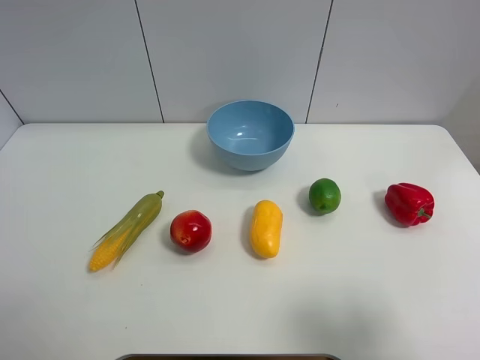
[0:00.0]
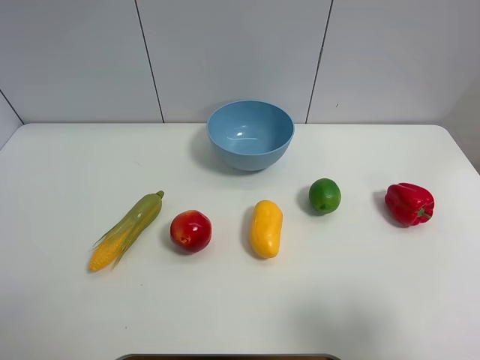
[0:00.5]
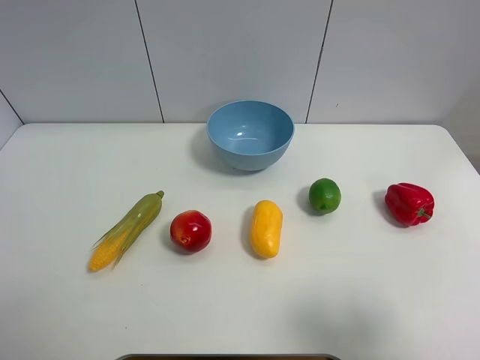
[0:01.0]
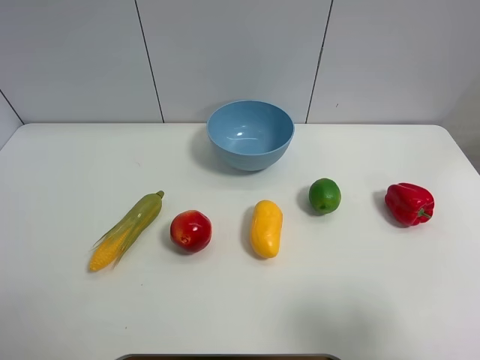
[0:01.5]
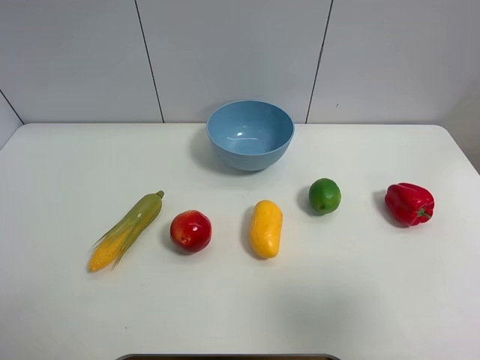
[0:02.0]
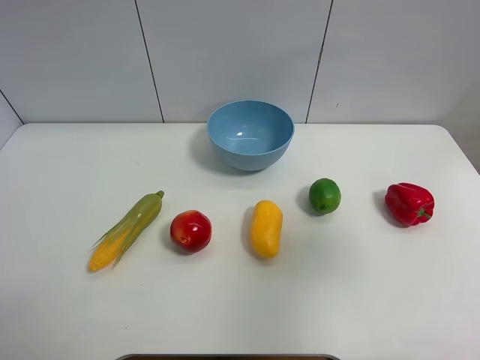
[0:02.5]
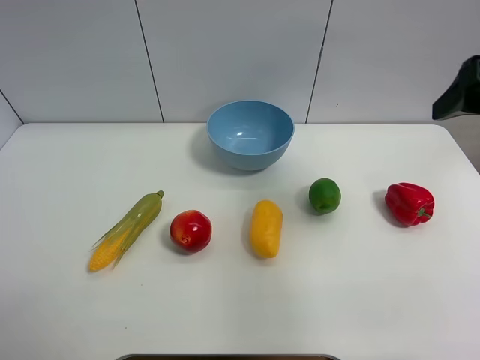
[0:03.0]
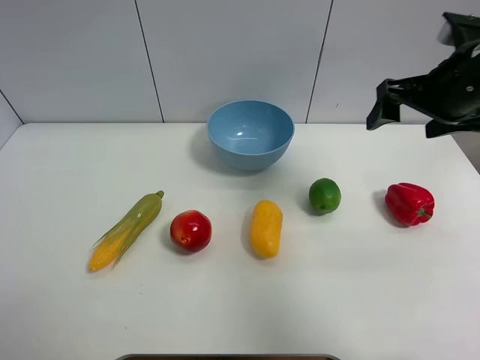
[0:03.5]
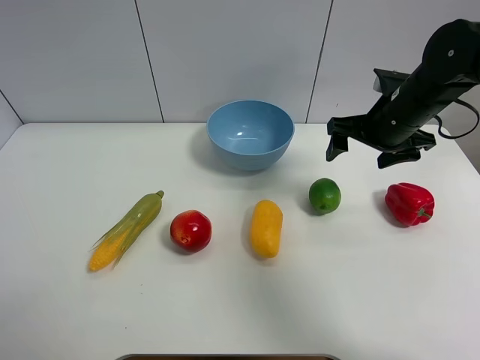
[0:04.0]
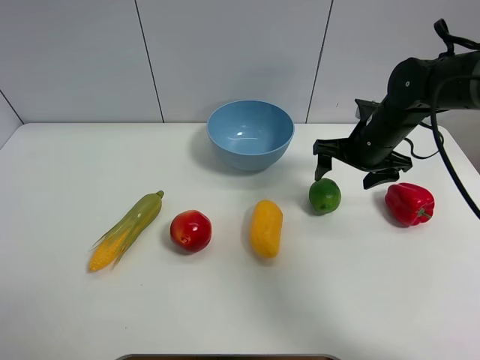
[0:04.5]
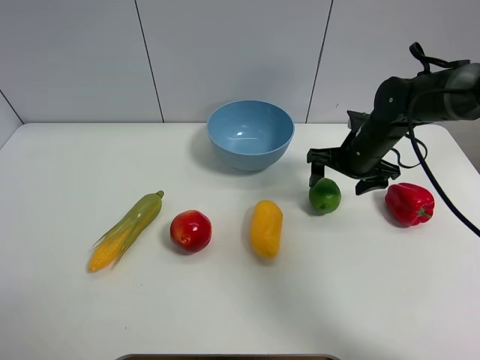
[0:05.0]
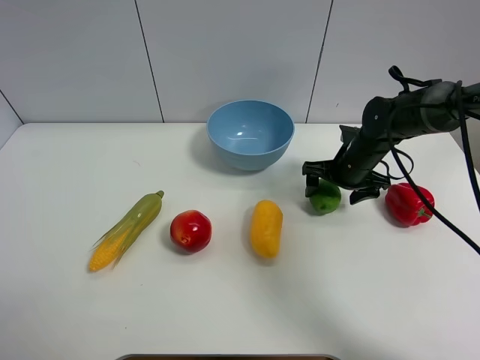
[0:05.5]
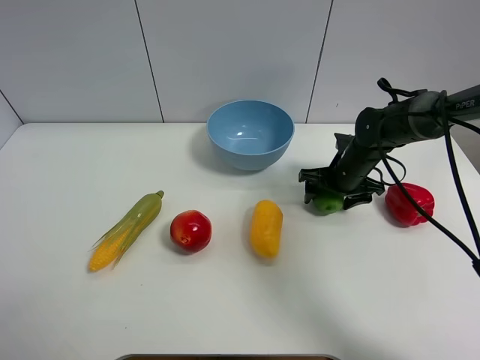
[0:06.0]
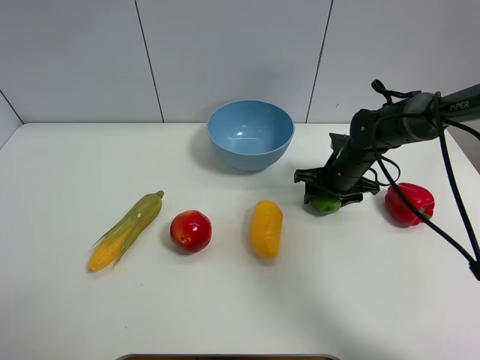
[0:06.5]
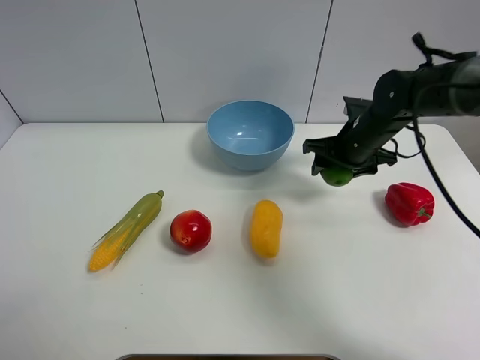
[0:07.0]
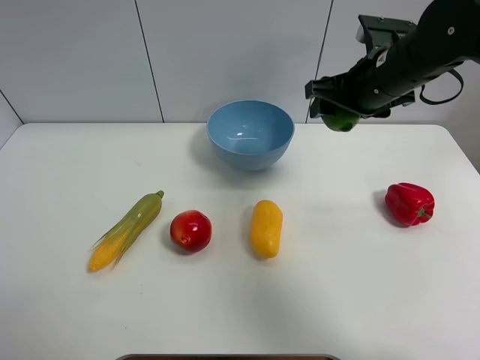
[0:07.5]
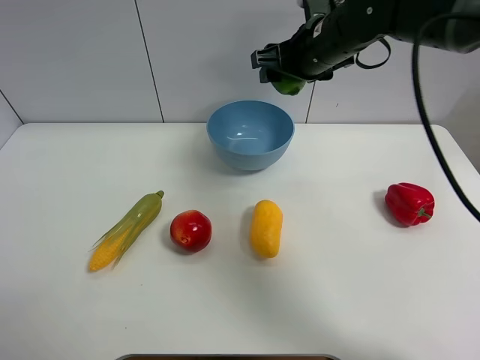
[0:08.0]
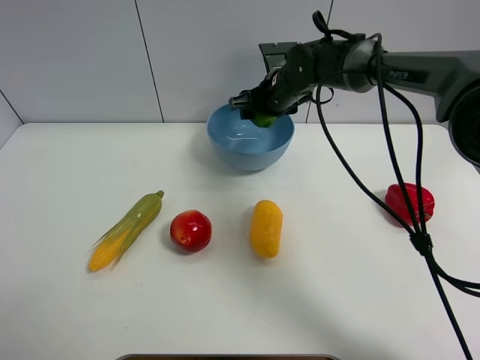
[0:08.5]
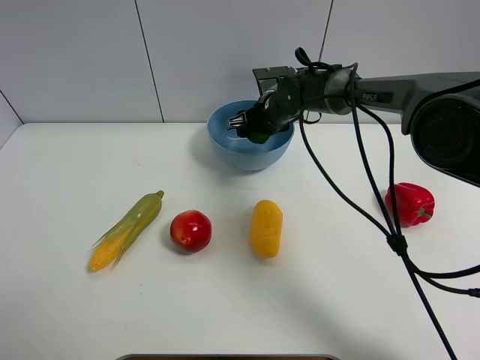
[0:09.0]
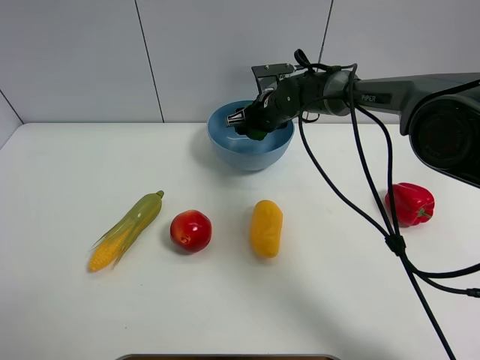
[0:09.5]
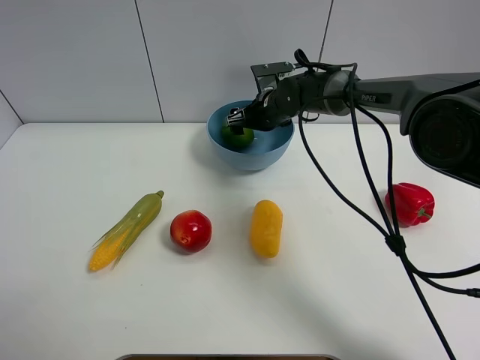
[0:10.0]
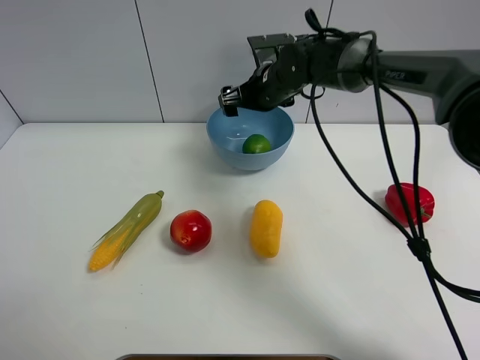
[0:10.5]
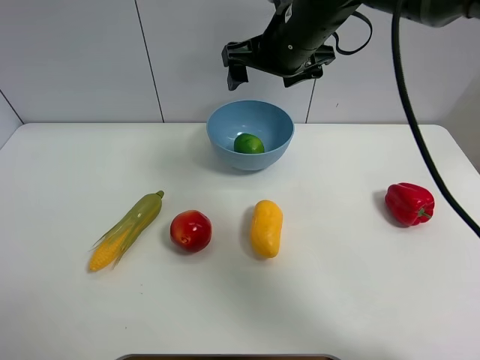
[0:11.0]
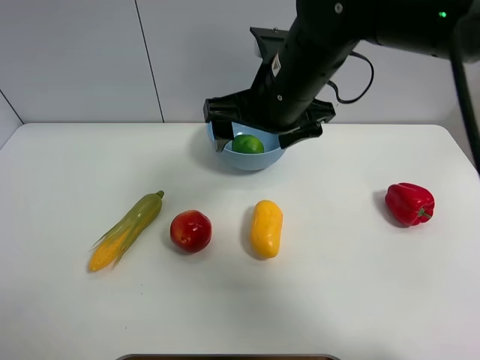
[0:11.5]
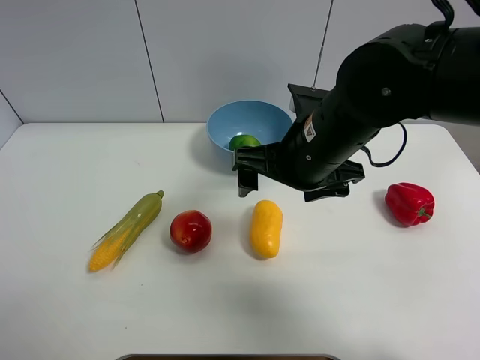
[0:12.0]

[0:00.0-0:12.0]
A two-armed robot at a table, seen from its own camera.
Task of the whole recording: Put the three fruits on the table into a bowl.
Step, 0:00.0 to 0:06.0: Grasp the green lemon with right gripper.
Step, 0:06.5 to 0:10.0: Place the green lemon in the blue bowl with right gripper.
0:00.0 to 0:02.0: The right gripper moves upward, roughly 5 cm.
0:02.0 to 0:04.0: The right gripper heads forward, covering about 30 cm.
0:04.0 to 0:06.0: The right gripper travels downward by some 15 cm, and closes its fingers.
0:06.0 to 0:08.0: The right gripper shifts roughly 20 cm upward and to the left.
0:08.0 to 0:10.0: The right gripper is displaced downward and forward by roughly 15 cm, and opens up.
0:10.0 to 0:12.0: The right gripper goes approximately 25 cm backward and upward.

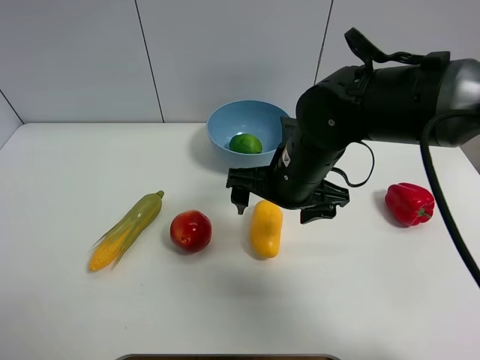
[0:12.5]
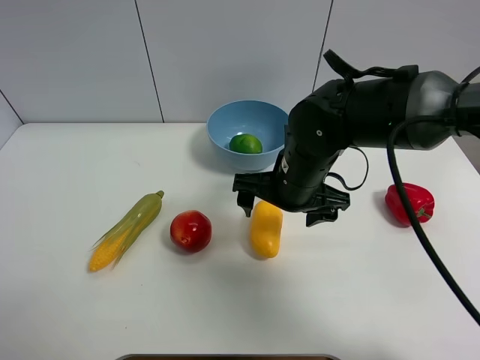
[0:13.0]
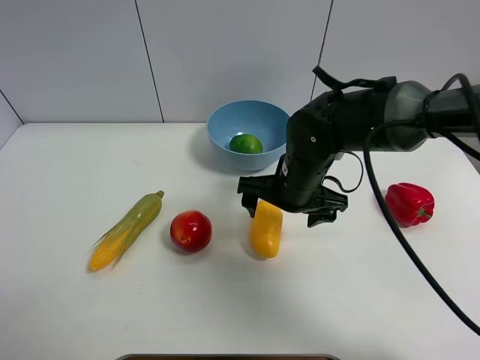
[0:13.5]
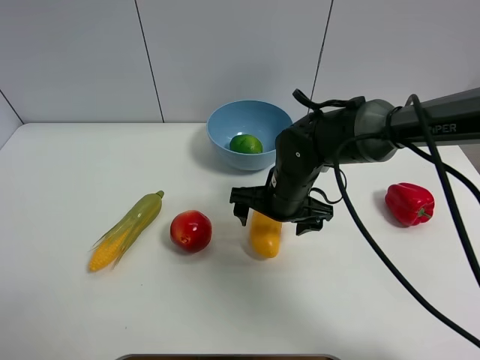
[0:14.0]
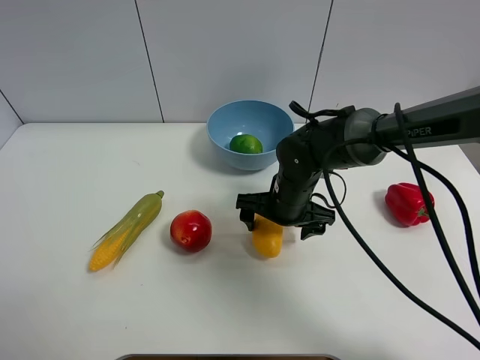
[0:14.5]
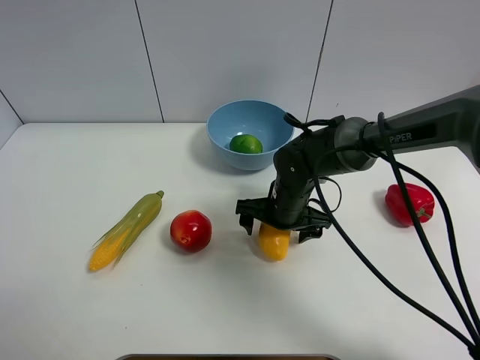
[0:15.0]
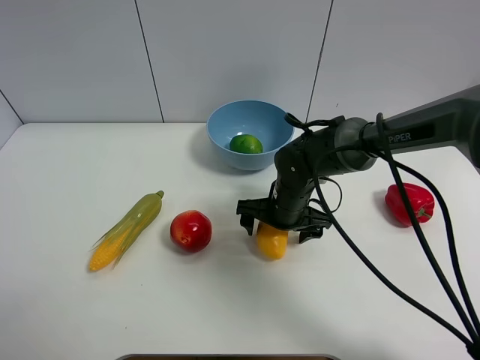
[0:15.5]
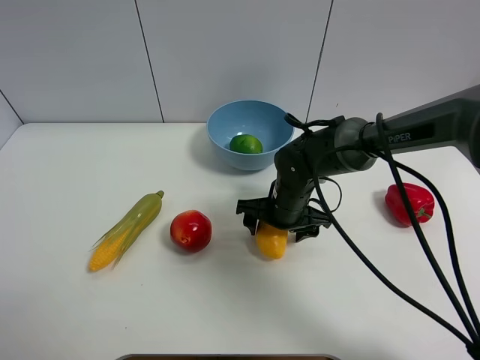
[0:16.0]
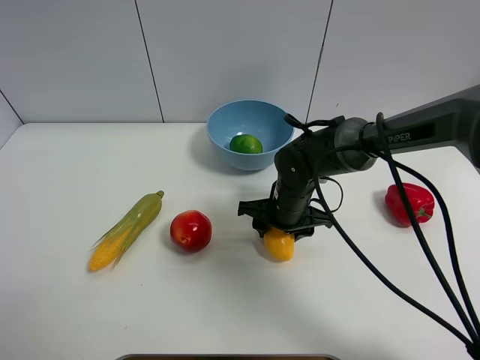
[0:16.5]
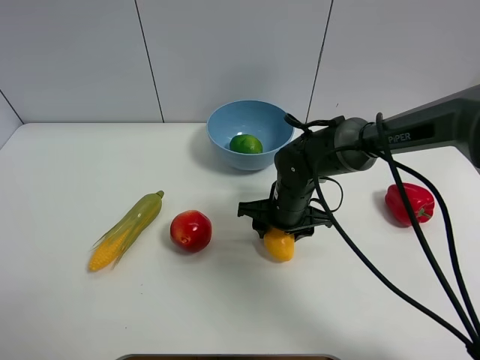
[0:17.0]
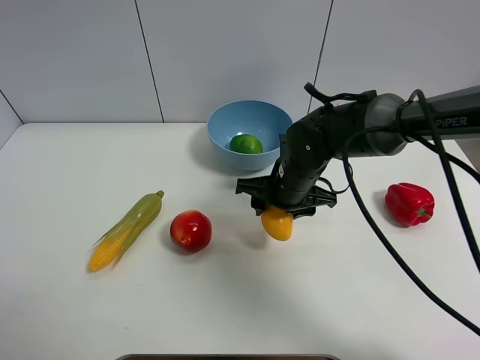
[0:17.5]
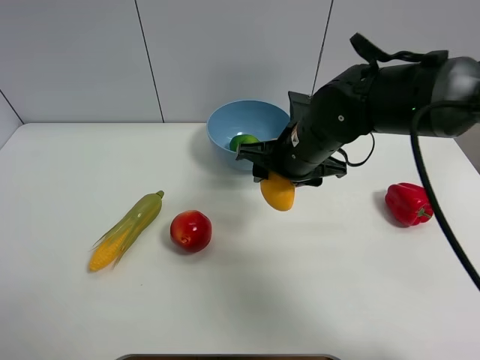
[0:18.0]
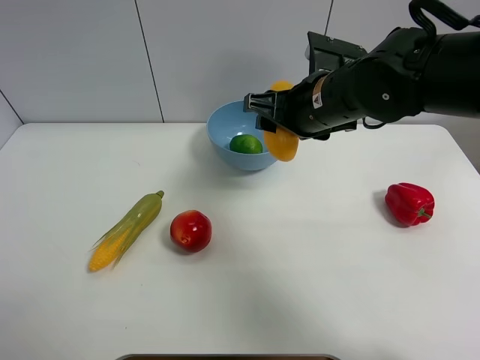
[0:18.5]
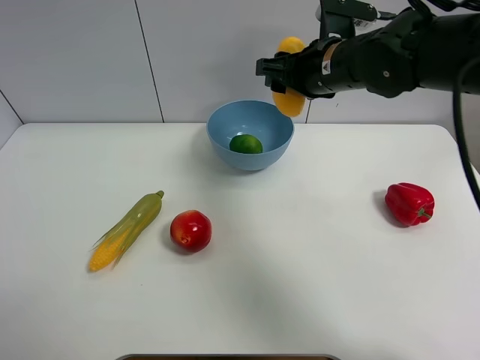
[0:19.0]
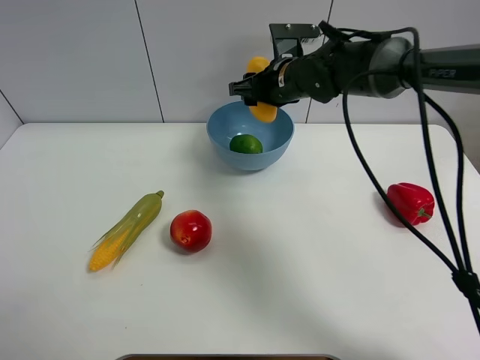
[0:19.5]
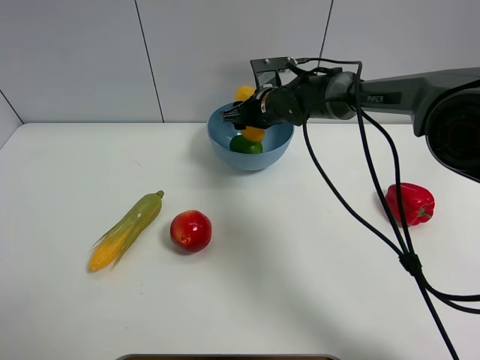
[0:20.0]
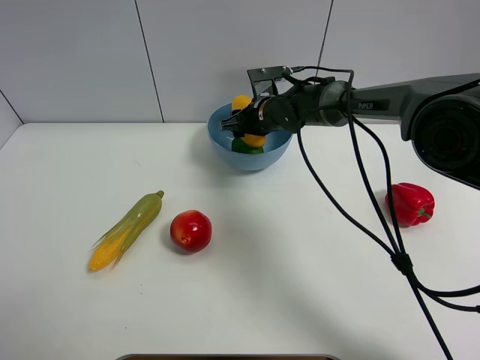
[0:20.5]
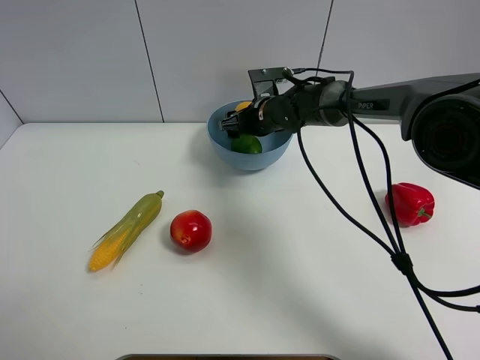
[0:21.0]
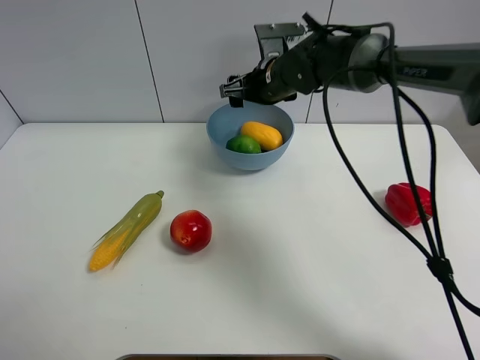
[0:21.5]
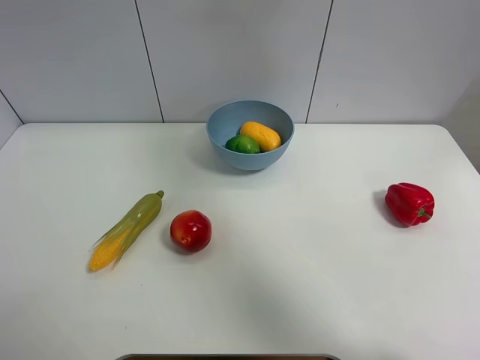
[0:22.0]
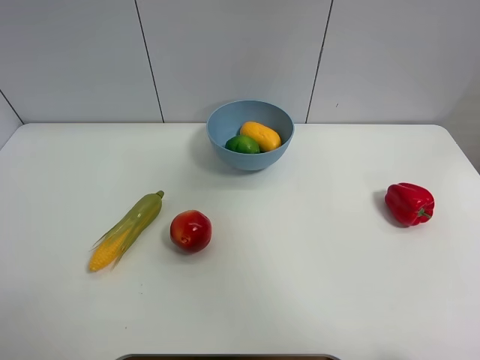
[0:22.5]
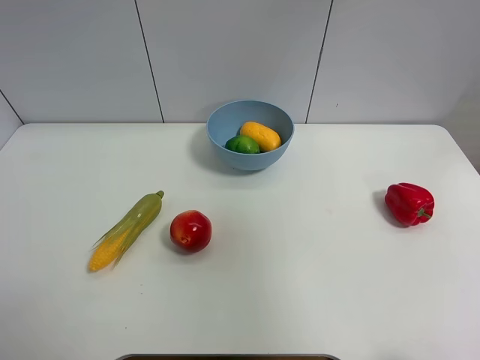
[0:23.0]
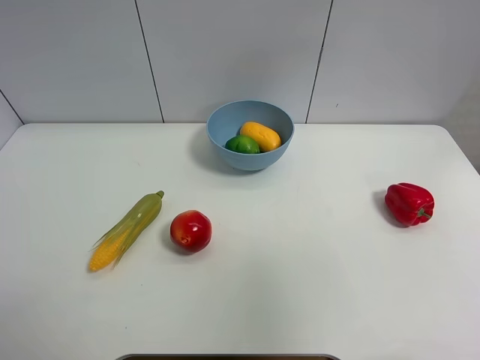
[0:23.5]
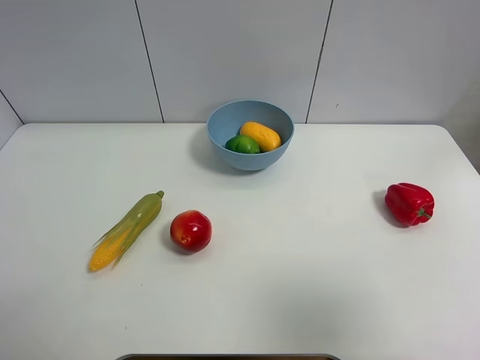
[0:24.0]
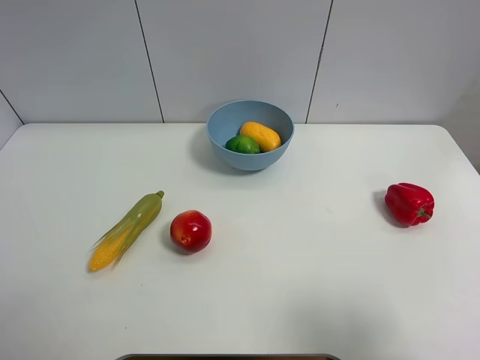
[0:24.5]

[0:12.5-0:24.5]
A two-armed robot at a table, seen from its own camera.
Task of the whole recording: Put the three fruits on the table into a bowl.
Step, 0:12.5 to 0:16.0: Grasp the mango with right gripper.
Step, 0:16.5 to 0:21.0: Place the mango in the blue bowl with right gripper.
0:12.5 to 0:14.5: The right gripper shifts roughly 10 cm downward.
0:14.5 to 0:16.5: The right gripper closes up.
0:16.5 to 0:18.5: The right gripper goes some 15 cm upward.
0:18.5 to 0:20.5: The right gripper moves forward and downward, about 20 cm.
0:20.5 to 0:22.5: The right gripper heads upward, backward and to the right, covering some 50 cm, and opens up.
0:22.5 to 0:24.5: The right gripper heads downward and backward, covering some 30 cm.

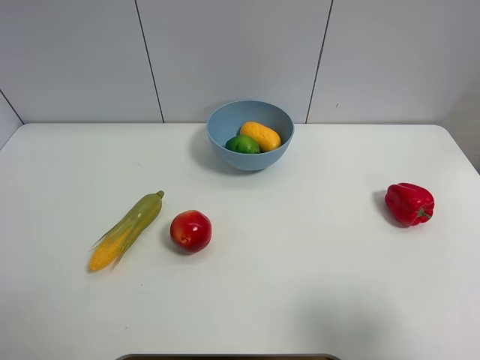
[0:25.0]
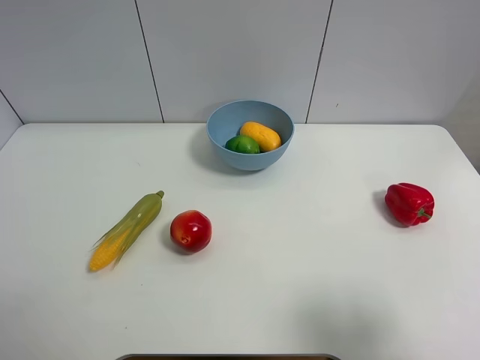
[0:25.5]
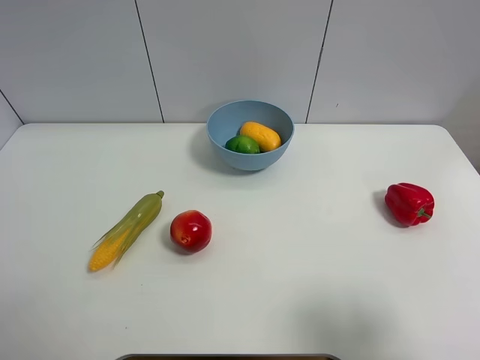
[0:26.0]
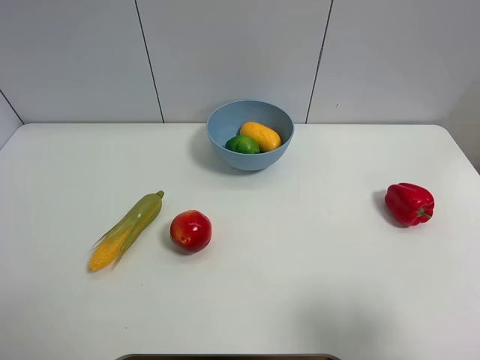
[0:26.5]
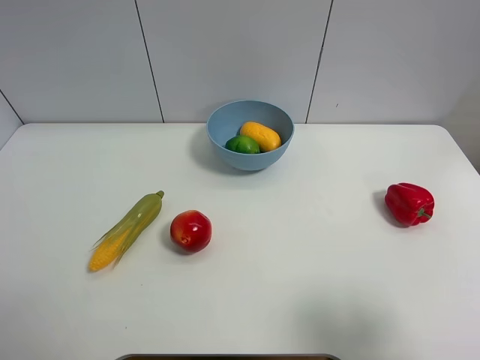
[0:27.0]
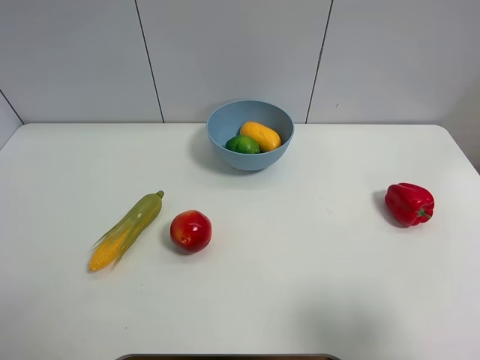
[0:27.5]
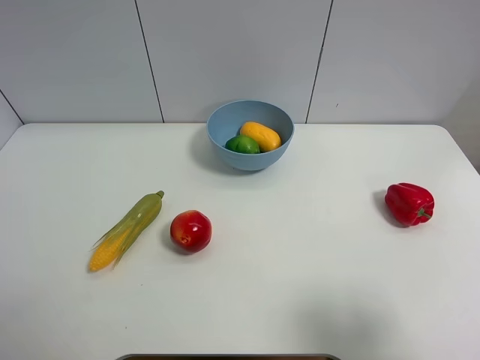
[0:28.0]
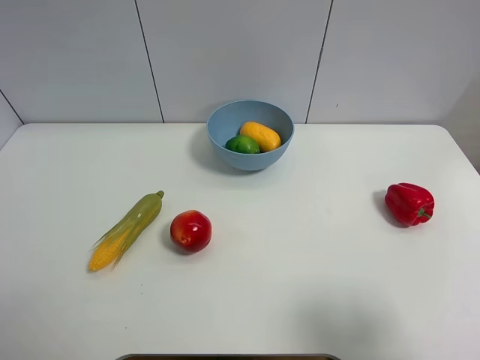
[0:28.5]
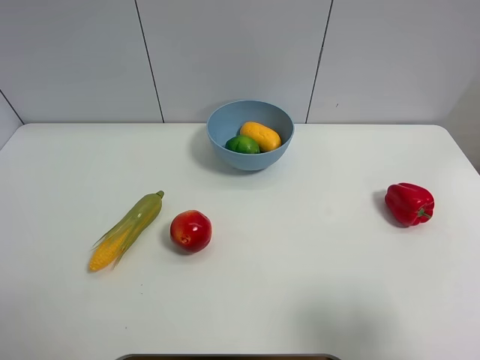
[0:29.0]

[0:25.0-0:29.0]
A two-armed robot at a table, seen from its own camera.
Task of the whole recording: Put the three fruits on the table into a bowl.
0:25.0 to 0:29.0: The two grippers keep their place.
